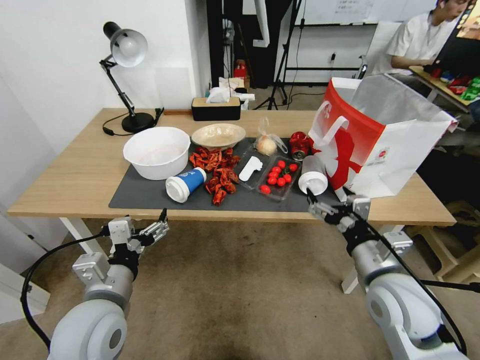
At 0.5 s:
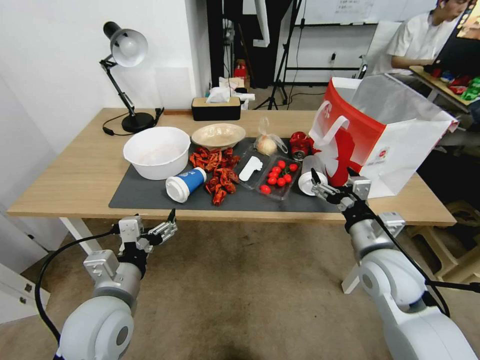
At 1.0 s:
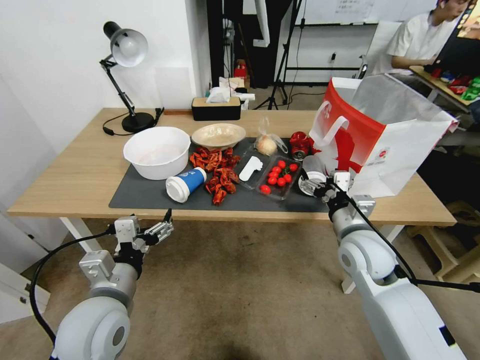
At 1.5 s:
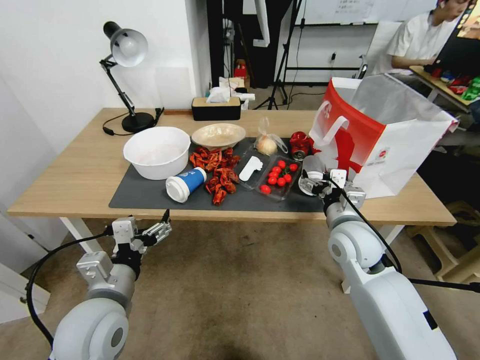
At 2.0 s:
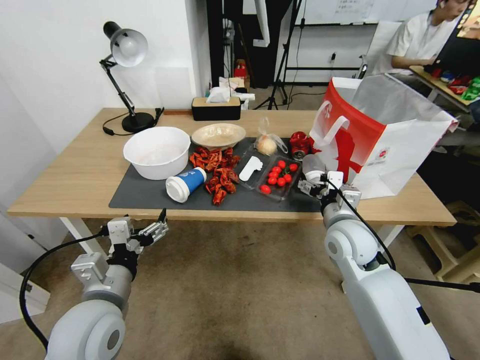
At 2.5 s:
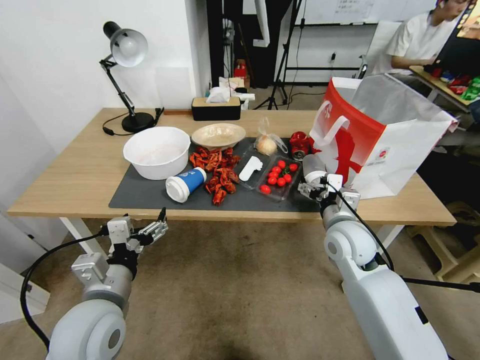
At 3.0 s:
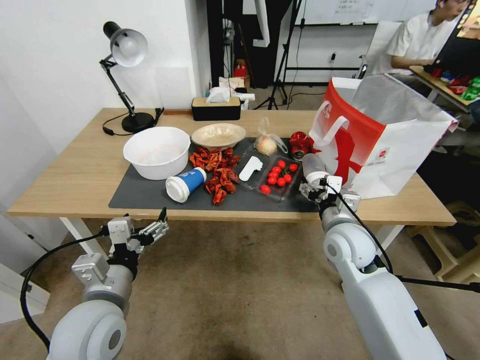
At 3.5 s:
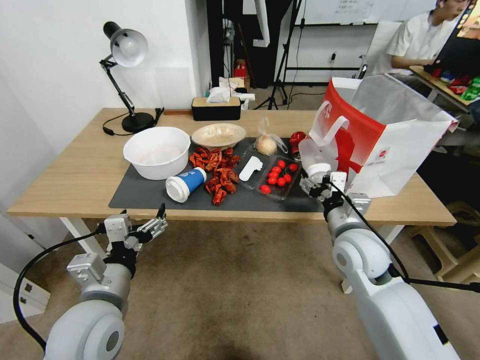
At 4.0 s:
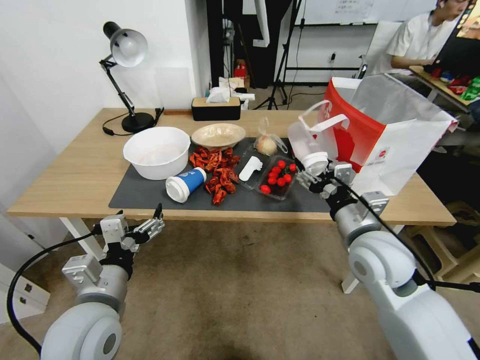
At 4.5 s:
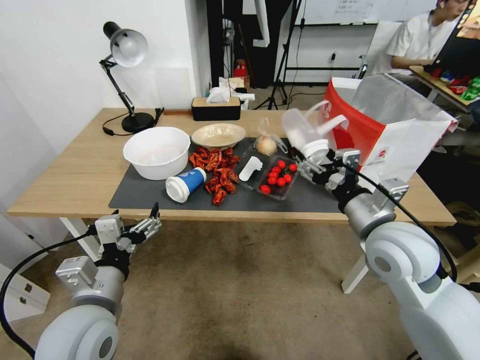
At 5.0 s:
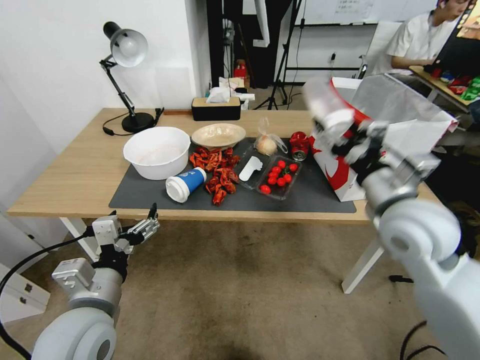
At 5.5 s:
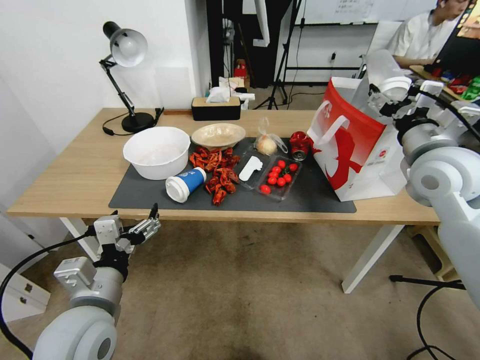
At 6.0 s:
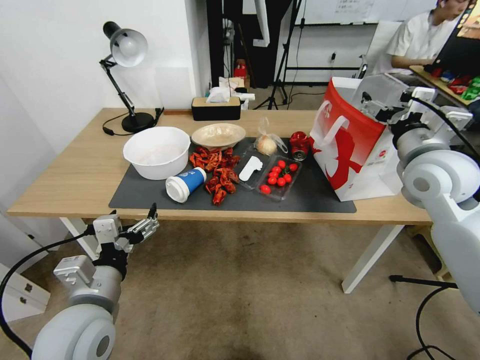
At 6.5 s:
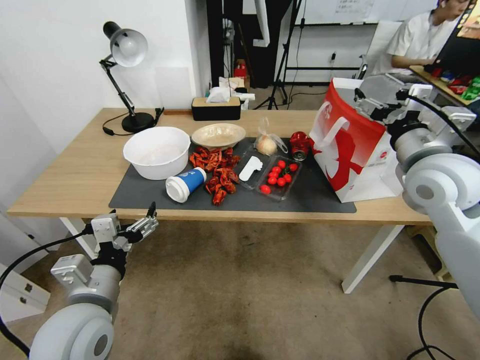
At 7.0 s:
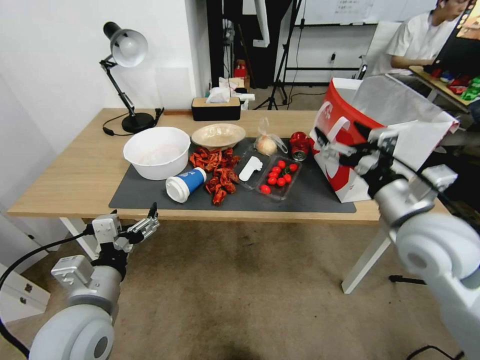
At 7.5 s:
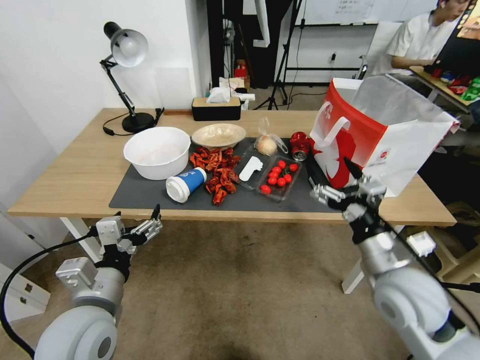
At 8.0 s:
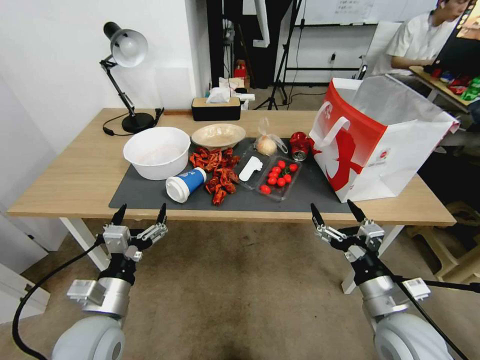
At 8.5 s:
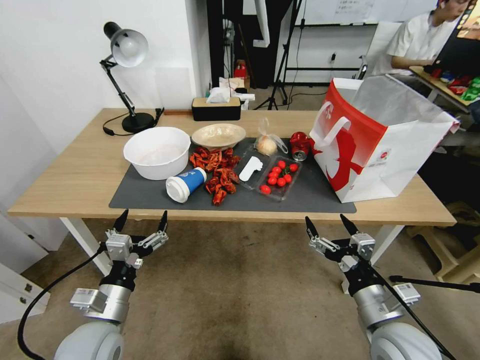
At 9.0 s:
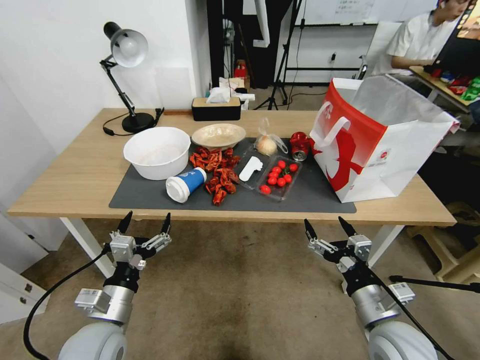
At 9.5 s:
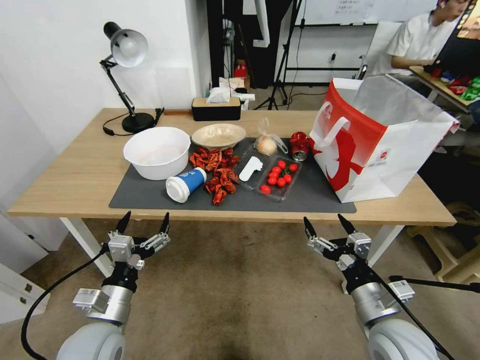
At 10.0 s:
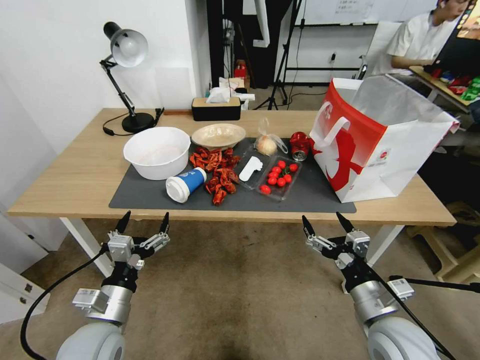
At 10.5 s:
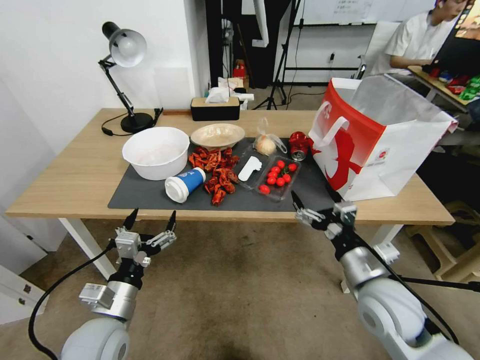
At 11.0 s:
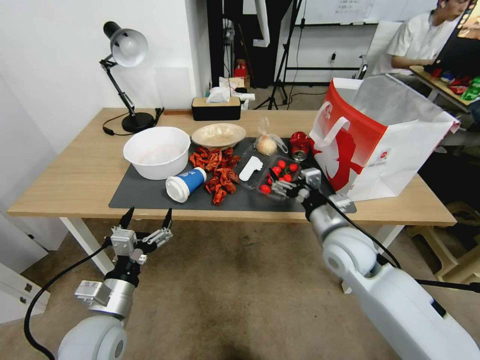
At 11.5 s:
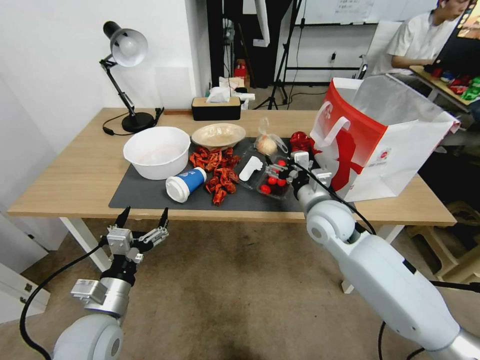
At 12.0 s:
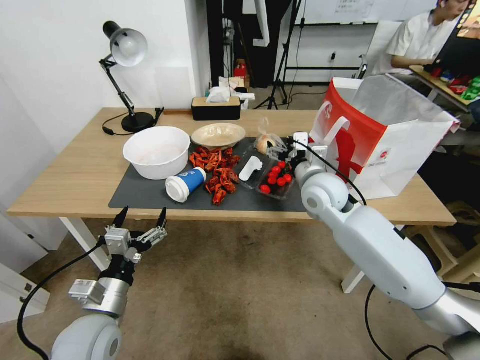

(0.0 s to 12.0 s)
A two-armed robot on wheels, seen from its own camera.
0.0 s - 2.0 s: The right gripper travels forward by approximately 10 cm.
2.0 s - 4.0 s: The right gripper moves backward and upward, roughly 10 cm.
4.0 s - 6.0 s: The right gripper shifts about 15 cm upward, forward and to the right.
6.0 s - 8.0 s: The right gripper goes about 30 cm backward and downward. Meanwhile the left gripper heads downward, covering some 5 cm.
8.0 s - 10.0 s: There are only small adjustments of the grippers.
10.0 s - 12.0 s: The right gripper travels forward and upward by about 30 cm.

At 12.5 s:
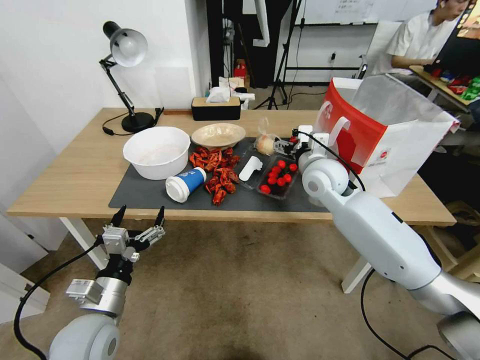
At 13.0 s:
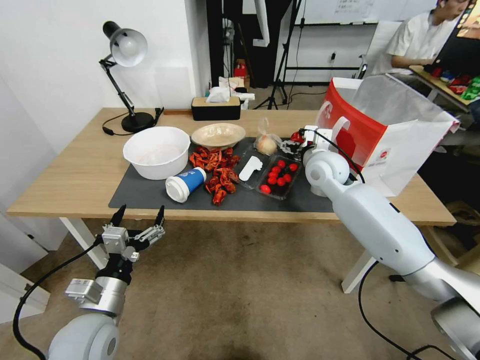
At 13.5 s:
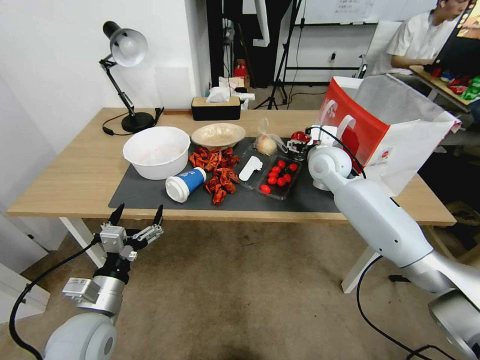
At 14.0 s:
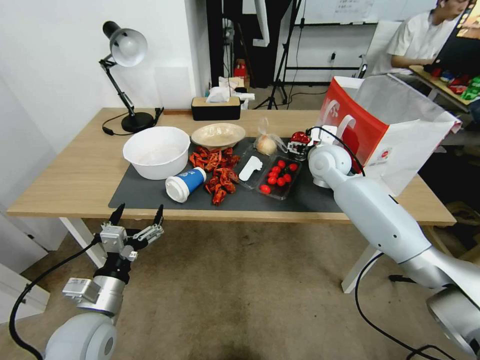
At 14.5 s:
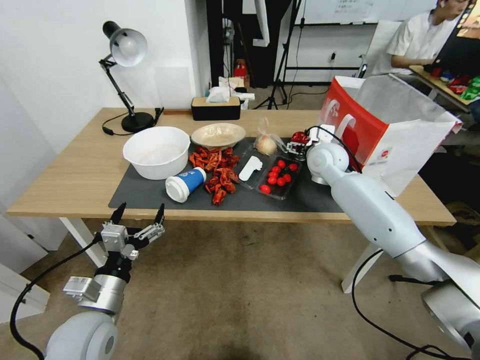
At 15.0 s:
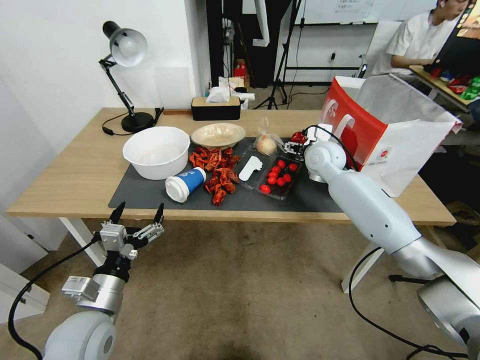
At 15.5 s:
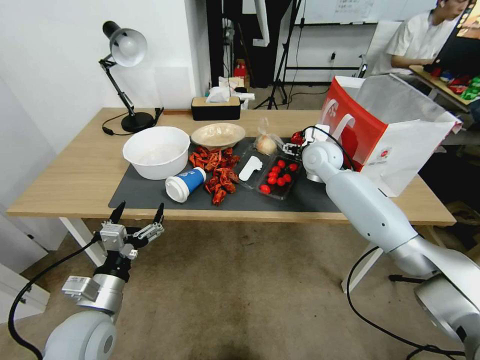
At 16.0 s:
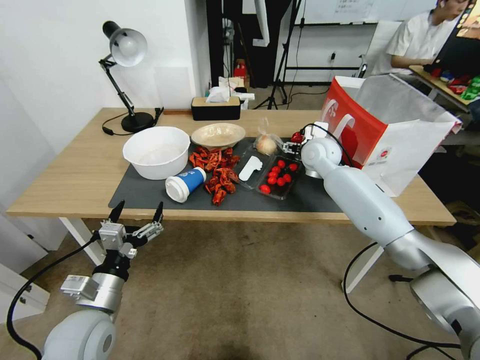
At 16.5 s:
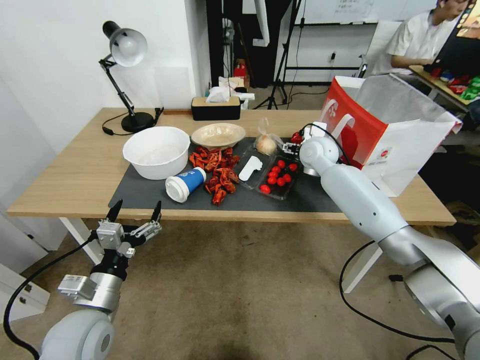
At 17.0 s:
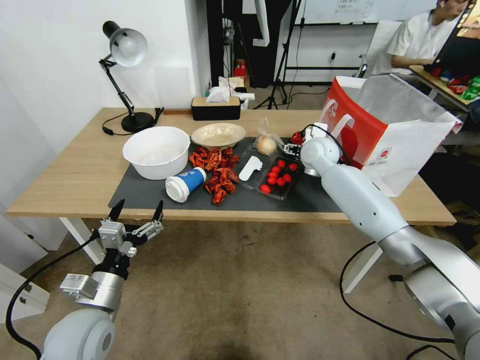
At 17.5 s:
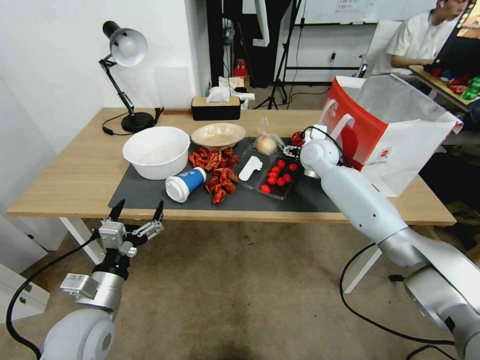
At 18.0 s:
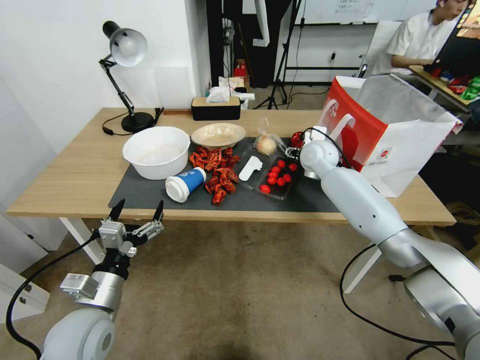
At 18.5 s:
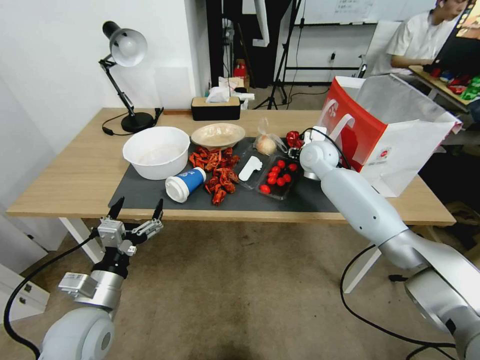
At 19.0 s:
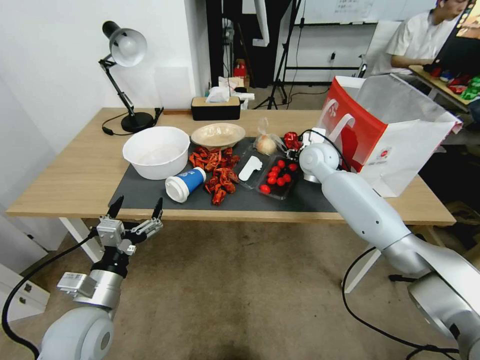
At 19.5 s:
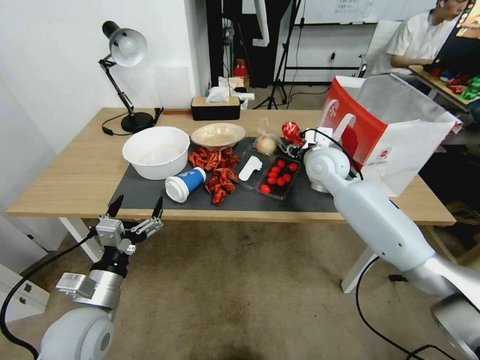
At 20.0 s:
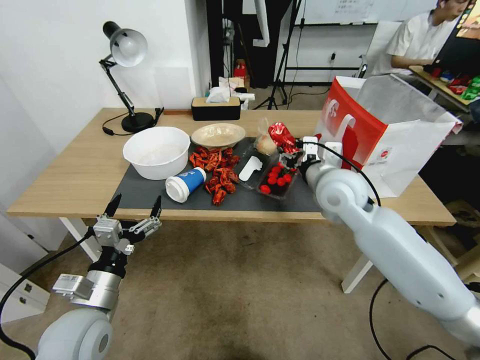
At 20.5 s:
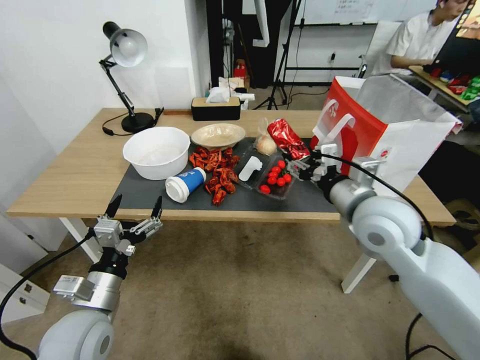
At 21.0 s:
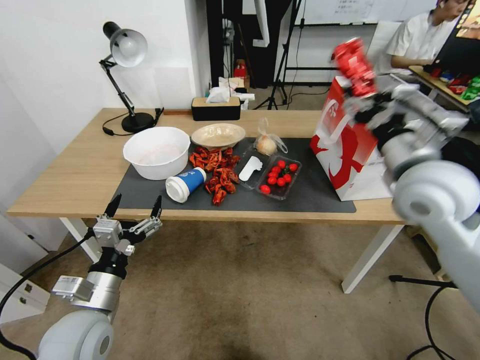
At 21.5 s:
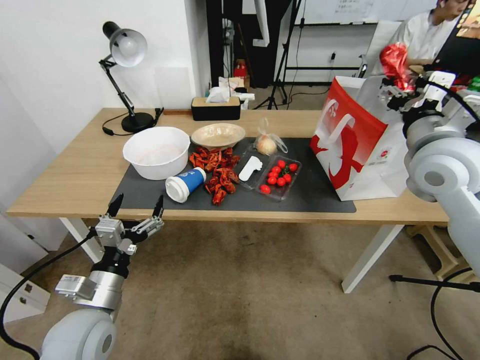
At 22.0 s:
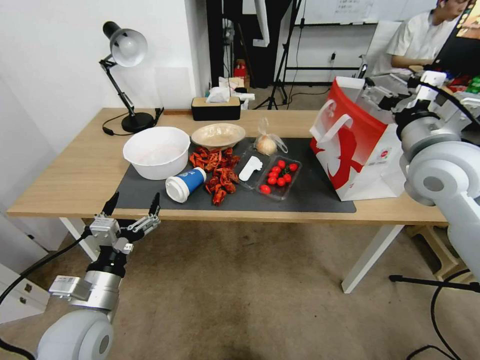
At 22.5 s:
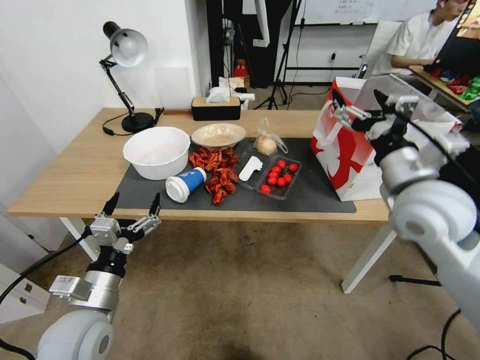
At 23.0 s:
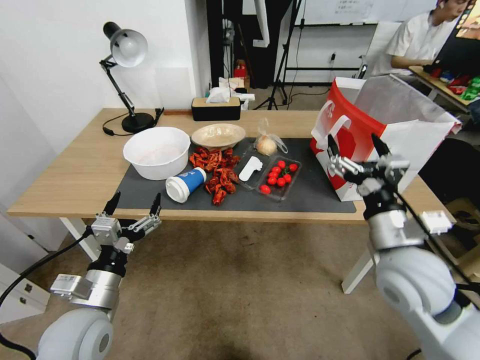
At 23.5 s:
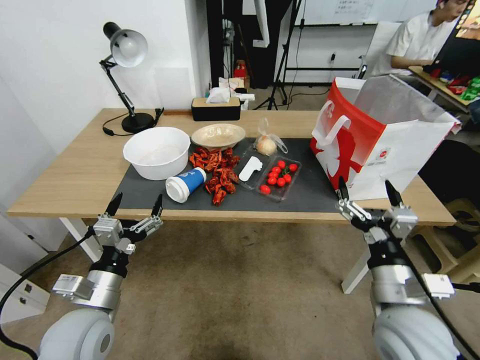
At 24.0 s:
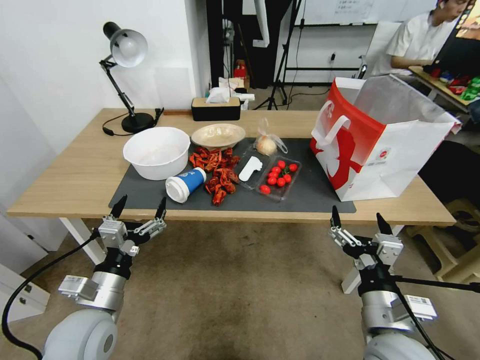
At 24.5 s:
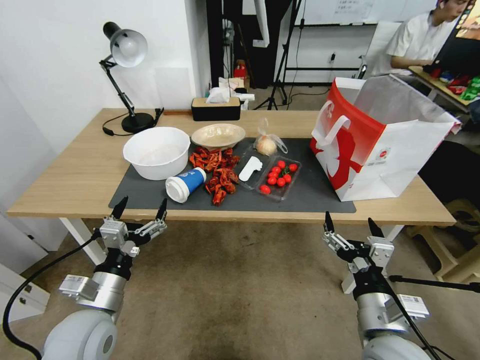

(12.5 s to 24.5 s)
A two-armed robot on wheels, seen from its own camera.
12.5 s - 14.5 s: The right gripper shifts roughly 10 cm forward.
14.5 s - 16.5 s: There are only small adjustments of the grippers.
16.5 s - 18.5 s: The right gripper closes its fingers.
18.5 s - 20.5 s: The right gripper heads backward, covering about 25 cm.
20.5 s - 22.5 s: The right gripper travels to the right by some 5 cm, and opens.
22.5 s - 24.5 s: The right gripper shifts roughly 25 cm backward and downward.

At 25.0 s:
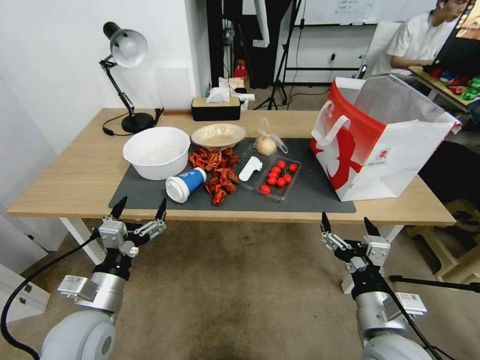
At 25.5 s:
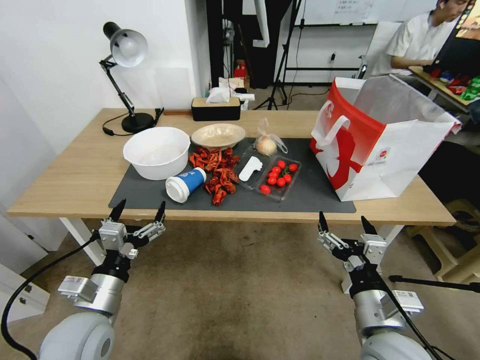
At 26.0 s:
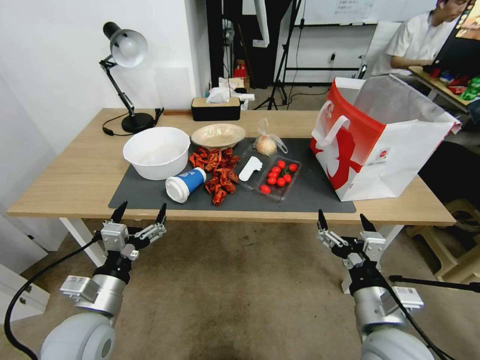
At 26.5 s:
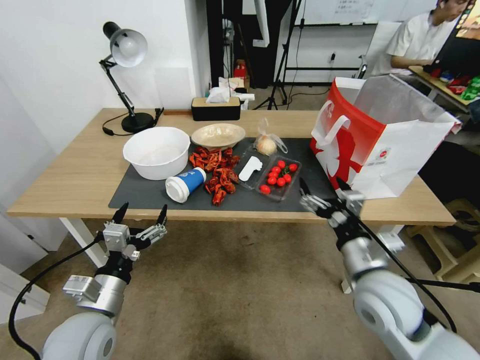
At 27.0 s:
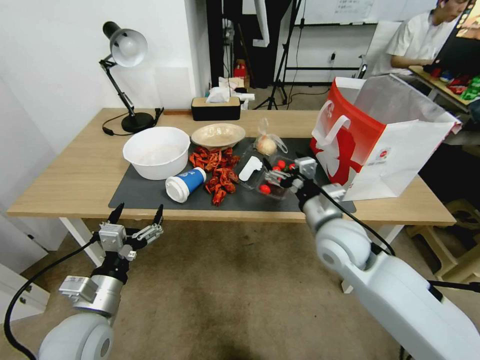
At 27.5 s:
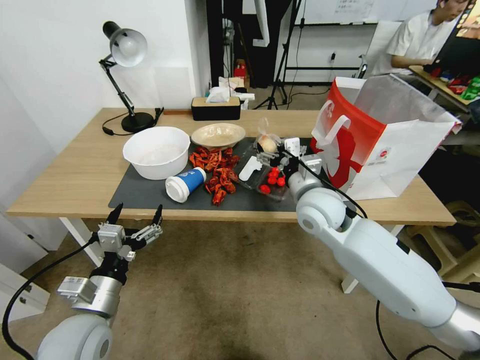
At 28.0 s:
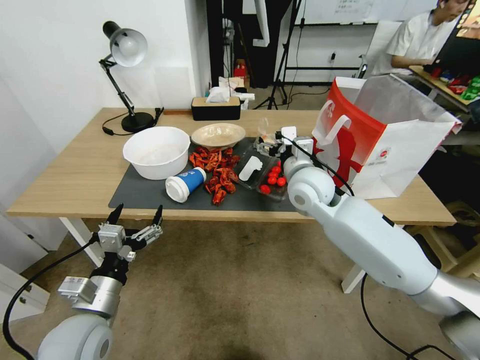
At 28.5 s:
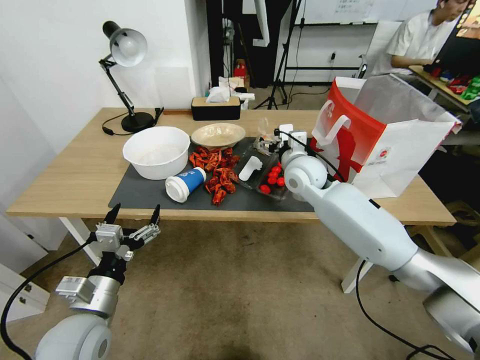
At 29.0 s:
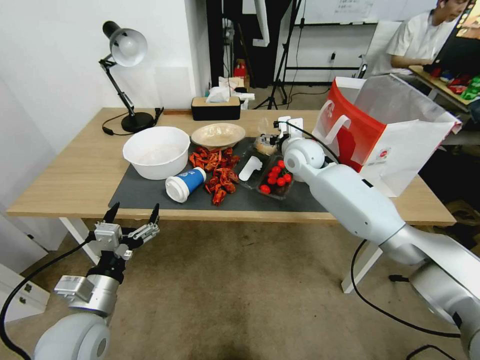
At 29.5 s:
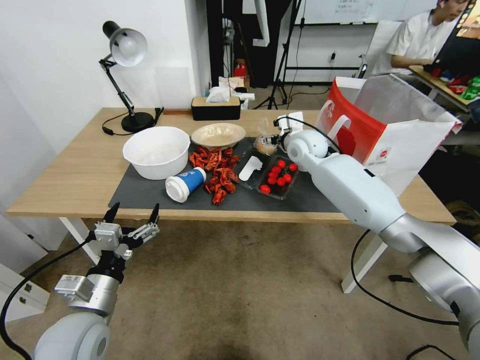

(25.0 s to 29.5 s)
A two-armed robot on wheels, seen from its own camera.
25.0 s - 27.0 s: The right gripper is displaced forward by approximately 20 cm.
27.0 s - 29.5 s: The right gripper goes approximately 25 cm forward.
